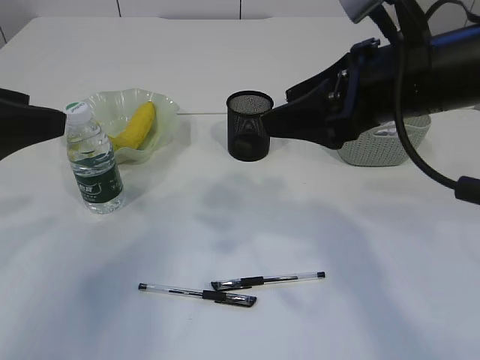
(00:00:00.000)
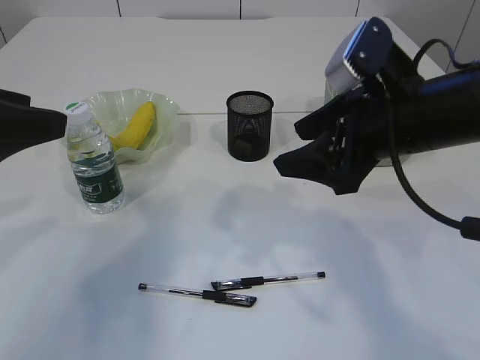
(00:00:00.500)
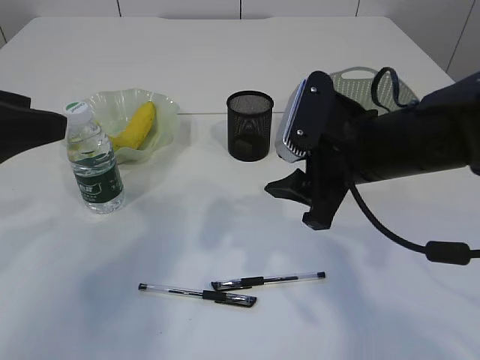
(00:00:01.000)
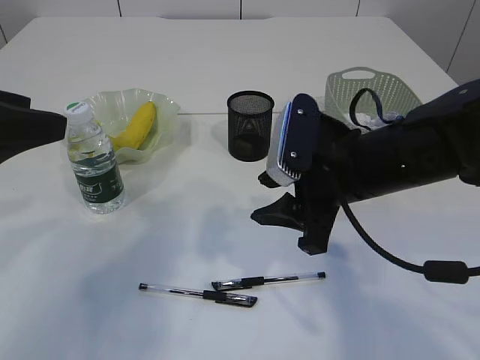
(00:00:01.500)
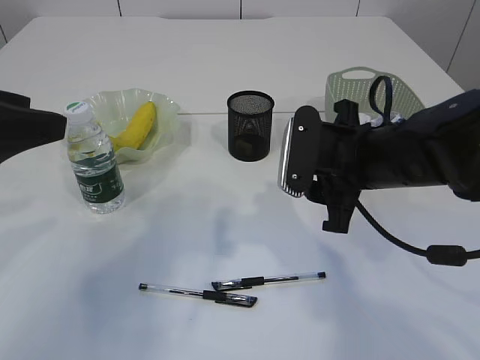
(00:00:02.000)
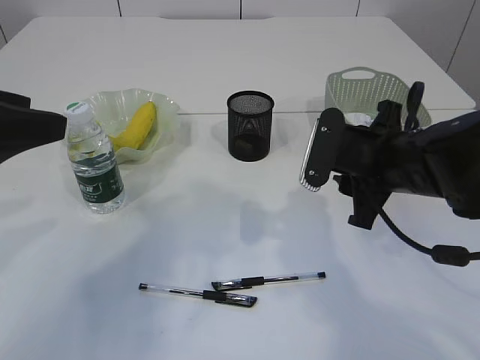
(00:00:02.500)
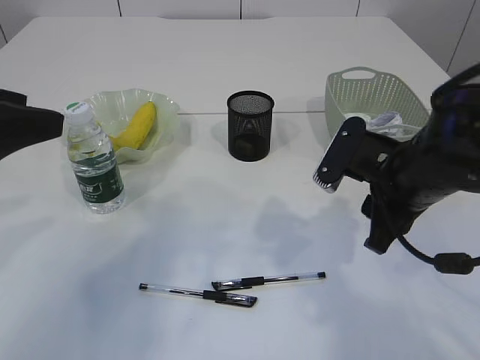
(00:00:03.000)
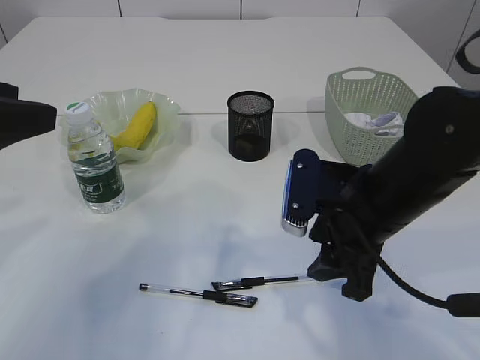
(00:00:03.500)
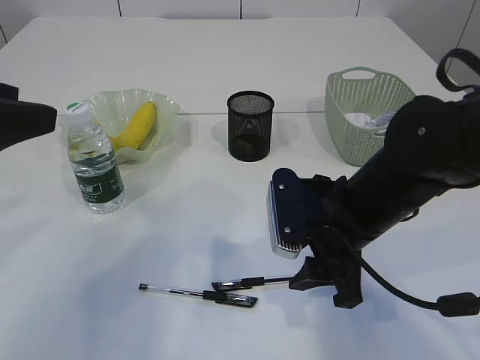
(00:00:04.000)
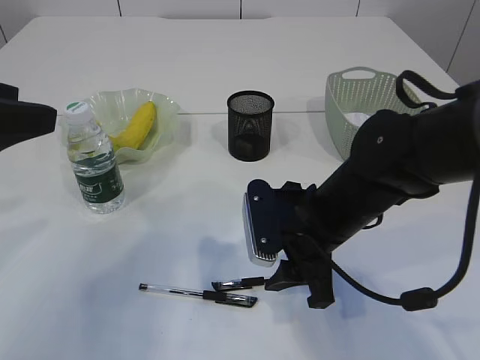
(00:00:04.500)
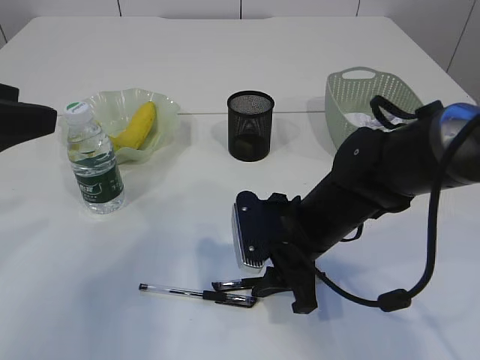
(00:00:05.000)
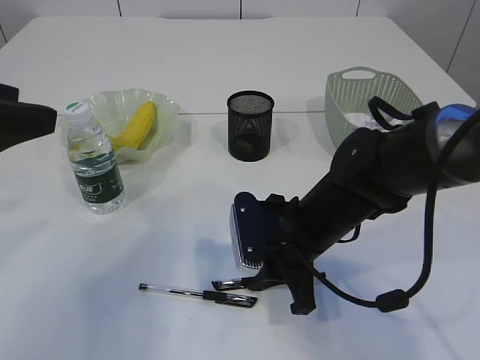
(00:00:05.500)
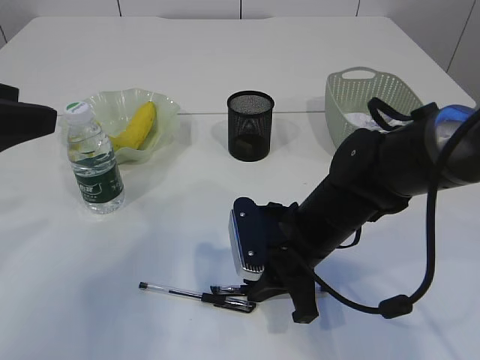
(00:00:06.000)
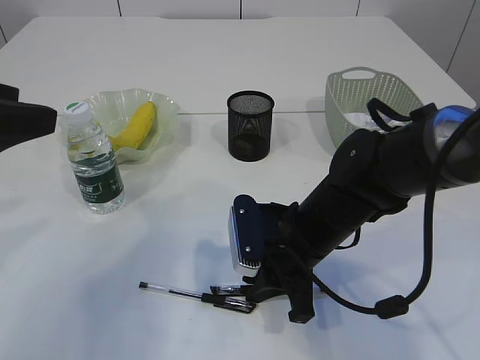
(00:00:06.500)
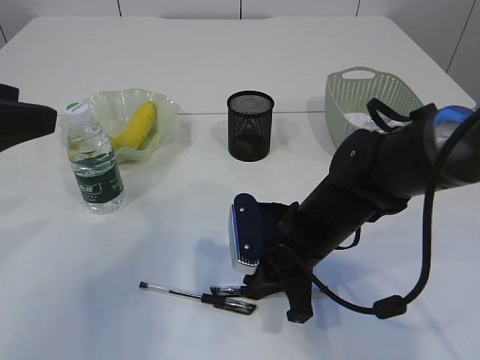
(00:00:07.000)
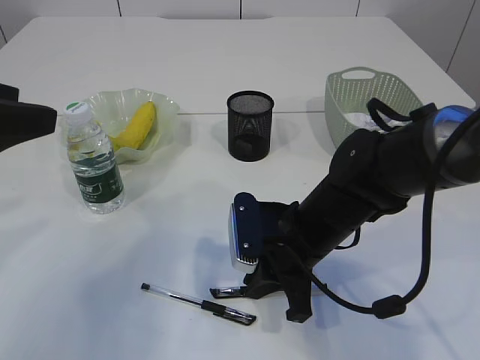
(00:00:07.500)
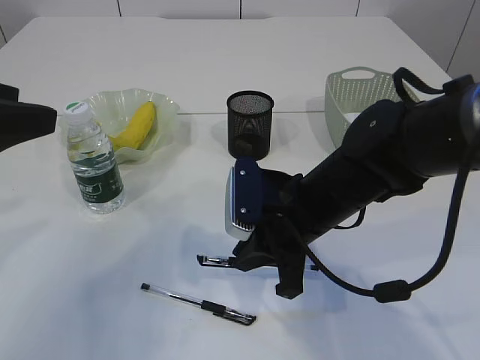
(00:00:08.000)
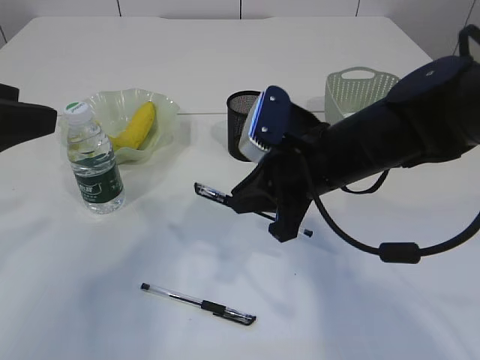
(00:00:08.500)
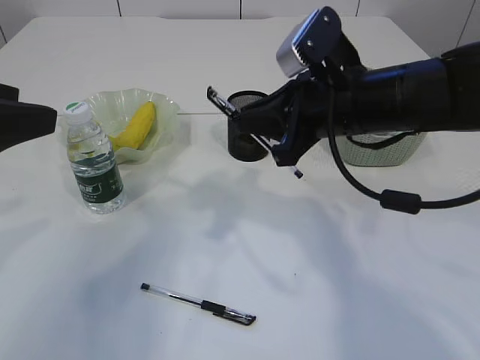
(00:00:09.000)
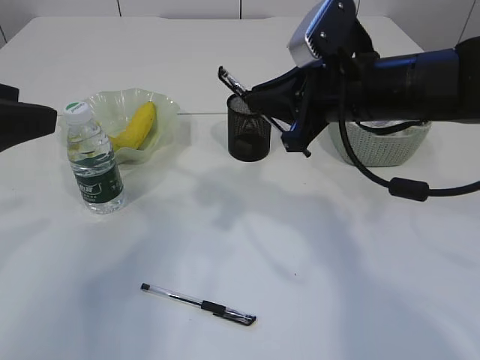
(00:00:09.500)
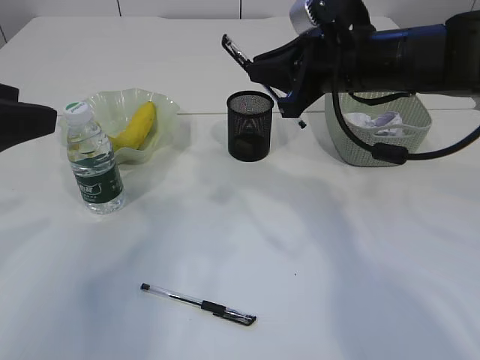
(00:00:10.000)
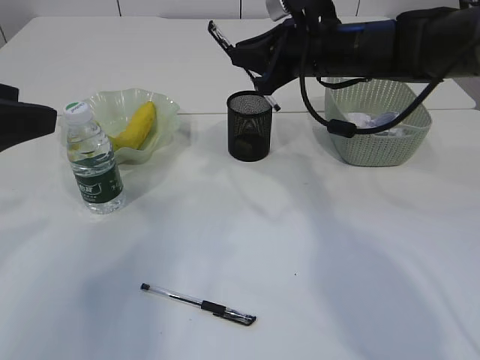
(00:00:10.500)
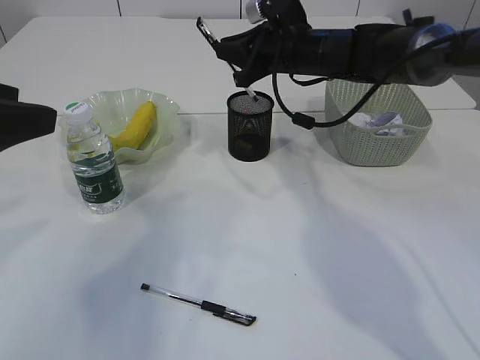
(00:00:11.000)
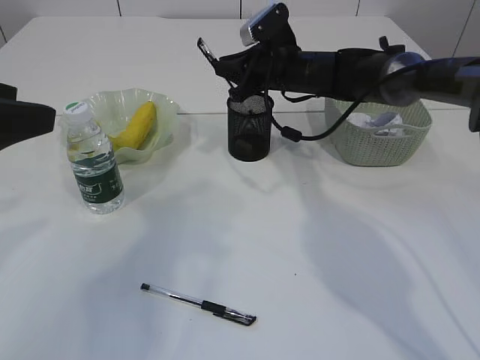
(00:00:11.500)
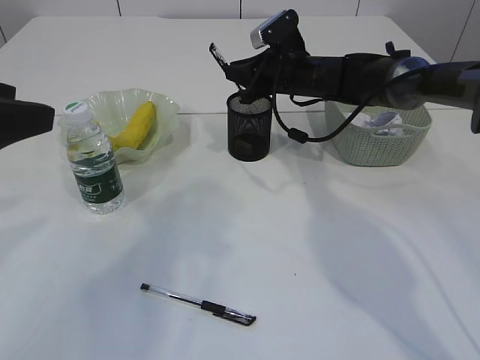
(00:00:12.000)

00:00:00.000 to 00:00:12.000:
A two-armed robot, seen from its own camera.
Step, 00:00:00.000 to 00:00:08.000: Pick up the pen with right arm.
00:00:00.000 to 00:00:02.000: The right gripper travels downward by some 10 cm.
00:00:02.000 to 00:00:04.000: The right gripper ends up about 5 cm from where it was.
00:00:04.000 to 00:00:06.000: The right gripper moves downward, about 5 cm, and closes up.
00:00:06.000 to 00:00:08.000: There are only small adjustments of the grippers.
00:00:08.000 to 00:00:10.000: The right gripper is displaced upward, forward and to the right by about 15 cm.
00:00:10.000 to 00:00:12.000: The right gripper moves forward and downward, some 20 cm.

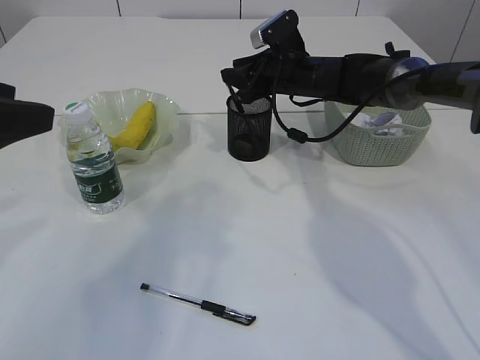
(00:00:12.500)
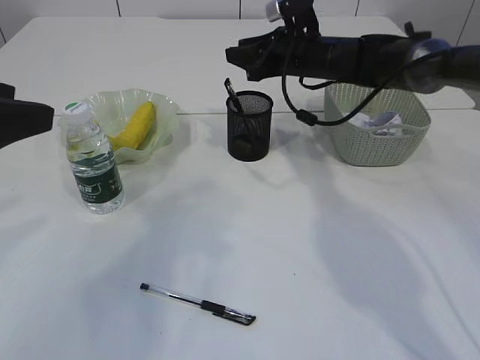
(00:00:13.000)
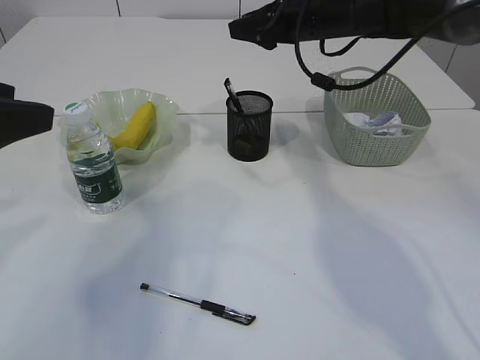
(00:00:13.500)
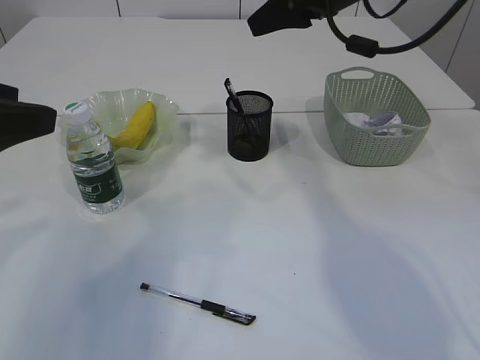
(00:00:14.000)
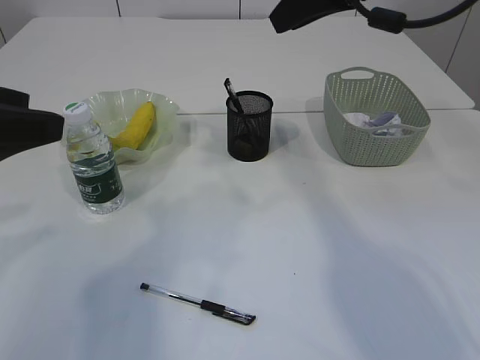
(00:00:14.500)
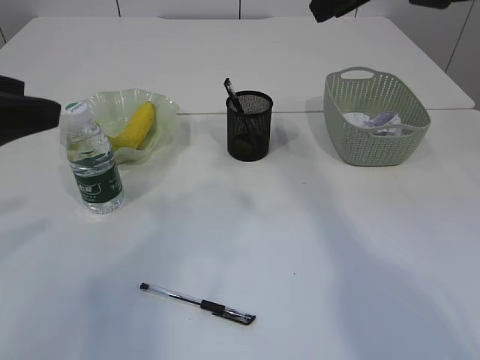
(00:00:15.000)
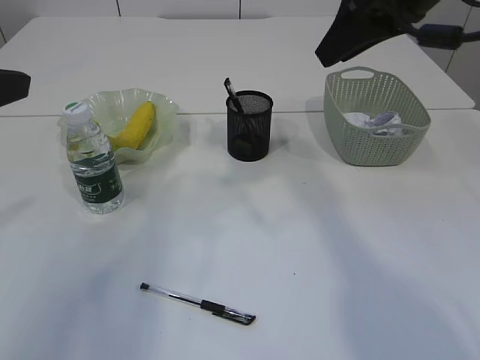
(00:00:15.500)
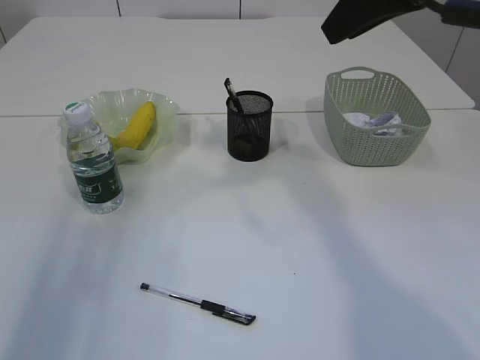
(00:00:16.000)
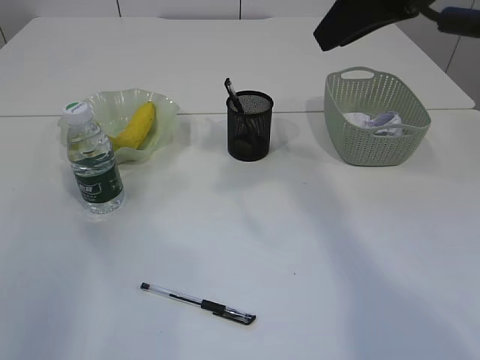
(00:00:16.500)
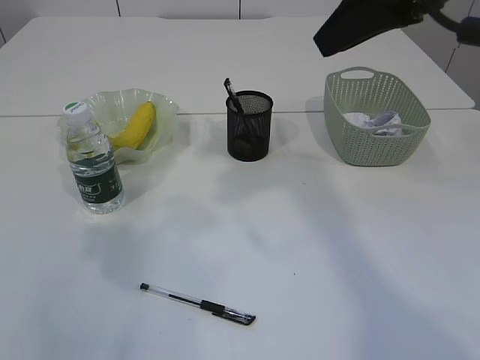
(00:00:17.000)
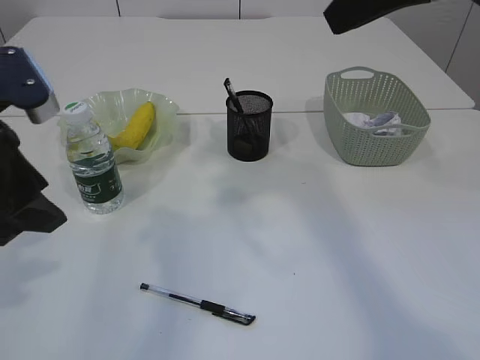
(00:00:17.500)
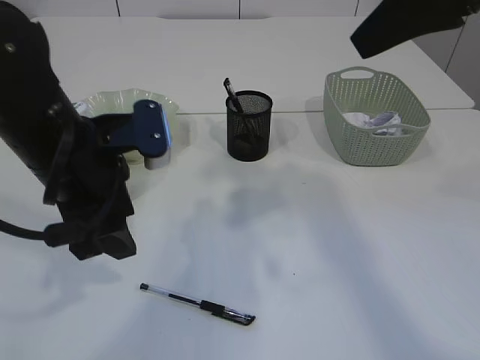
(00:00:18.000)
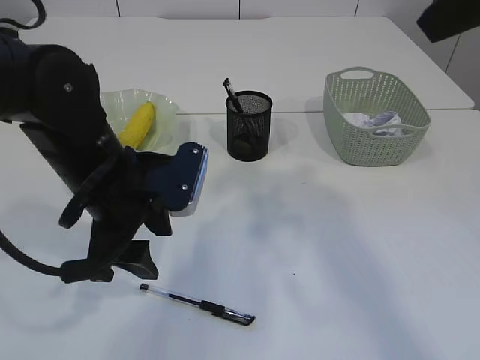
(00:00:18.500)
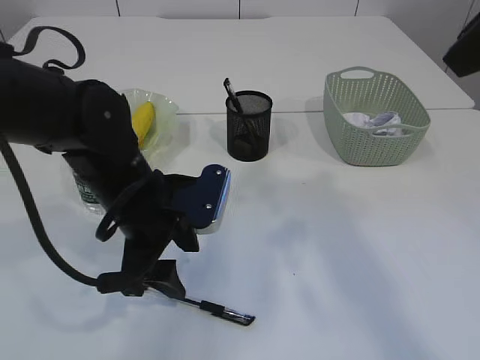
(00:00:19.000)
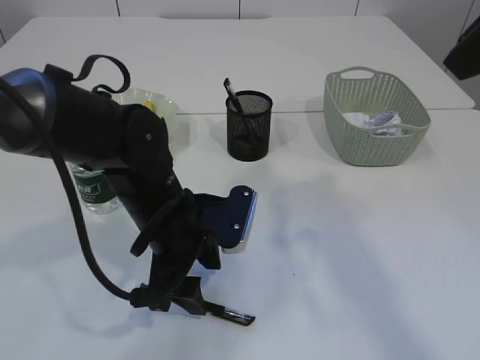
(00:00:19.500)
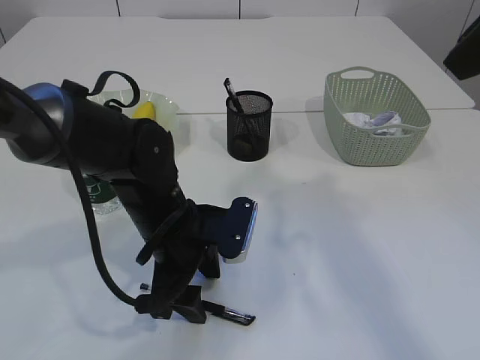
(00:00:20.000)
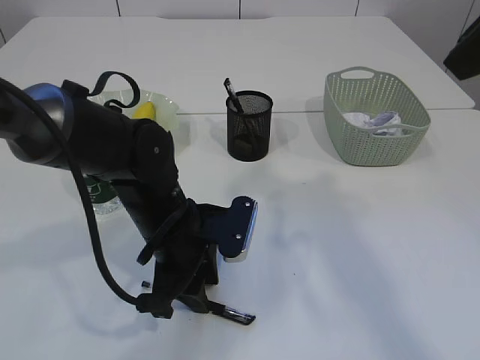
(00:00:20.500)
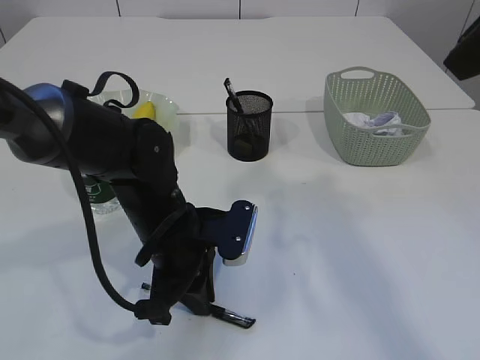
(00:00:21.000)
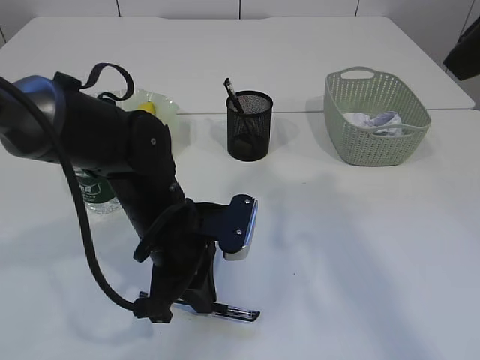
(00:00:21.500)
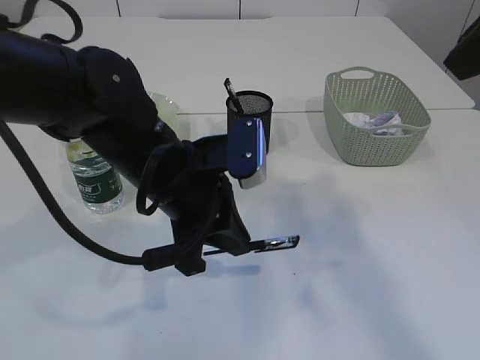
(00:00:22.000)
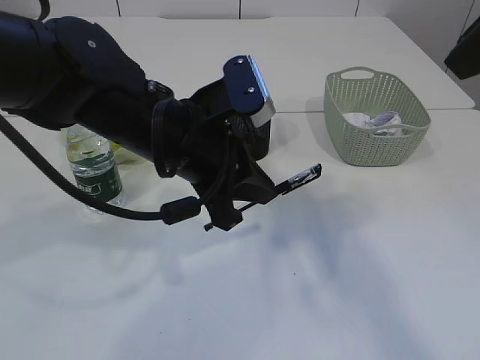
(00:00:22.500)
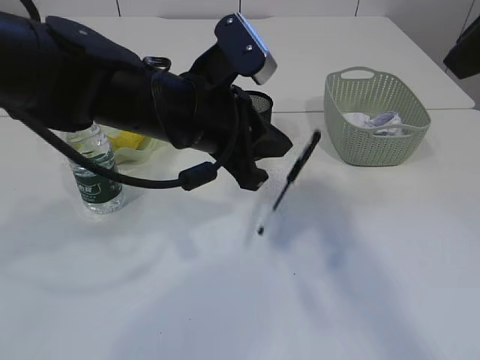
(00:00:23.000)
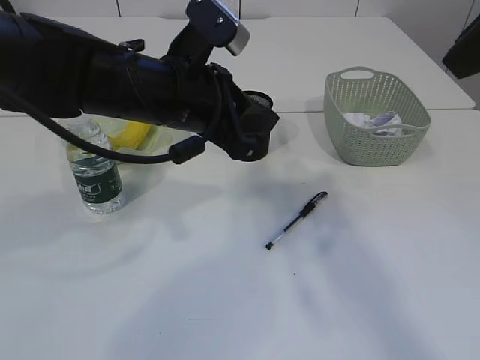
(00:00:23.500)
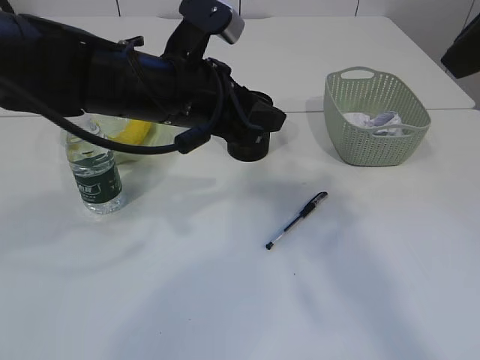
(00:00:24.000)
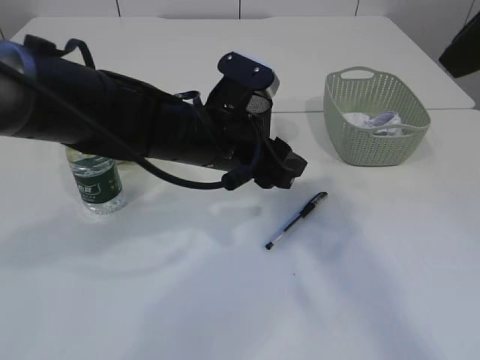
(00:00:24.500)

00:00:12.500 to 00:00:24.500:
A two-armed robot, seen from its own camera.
00:00:12.500 to 00:00:14.500: The right gripper goes about 25 cm upward and backward.
00:00:14.500 to 00:00:16.500: The left gripper is displaced to the left by roughly 10 cm, while the right gripper shifts some 5 cm backward.
00:00:16.500 to 00:00:18.500: The right gripper goes about 10 cm backward. The left gripper goes roughly 25 cm to the right and downward.
00:00:18.500 to 00:00:20.500: The left gripper travels downward by approximately 10 cm.
00:00:20.500 to 00:00:22.500: The left gripper travels upward by roughly 10 cm, and closes up.
00:00:22.500 to 00:00:24.500: The left gripper shifts by roughly 5 cm, and opens up.

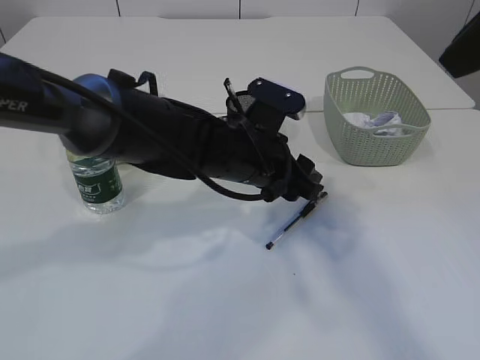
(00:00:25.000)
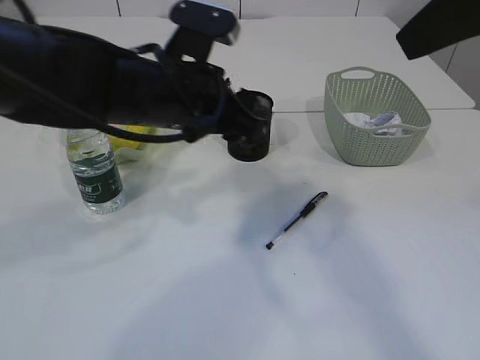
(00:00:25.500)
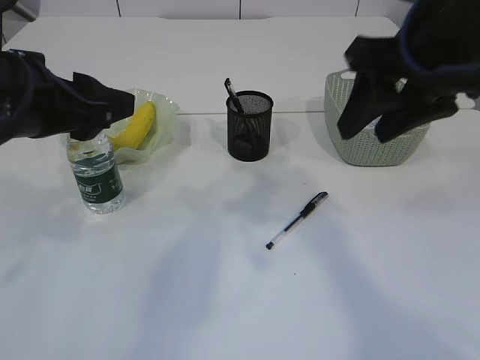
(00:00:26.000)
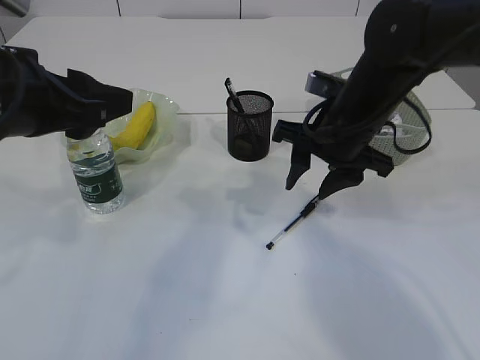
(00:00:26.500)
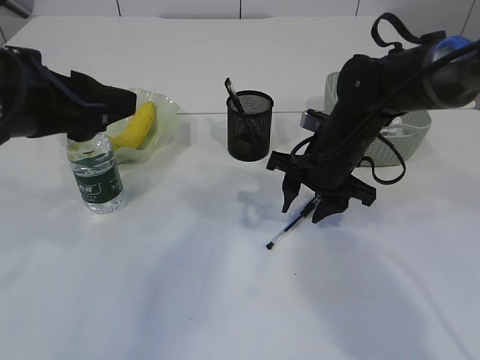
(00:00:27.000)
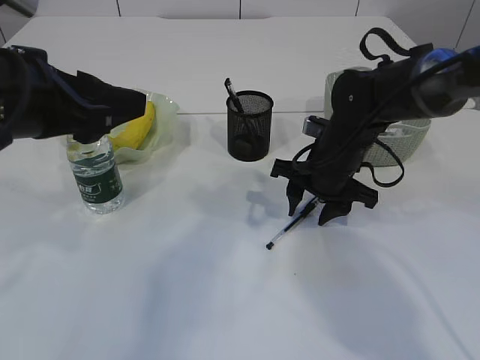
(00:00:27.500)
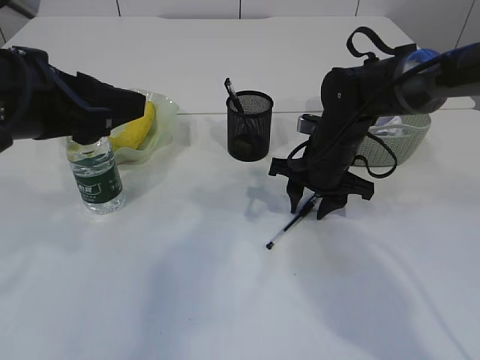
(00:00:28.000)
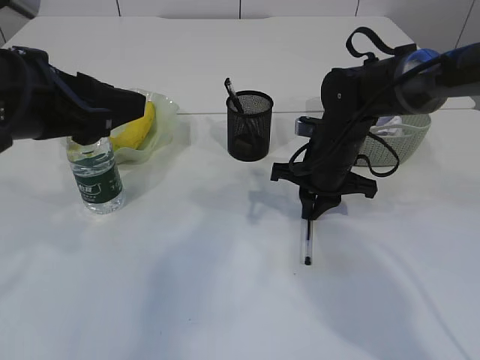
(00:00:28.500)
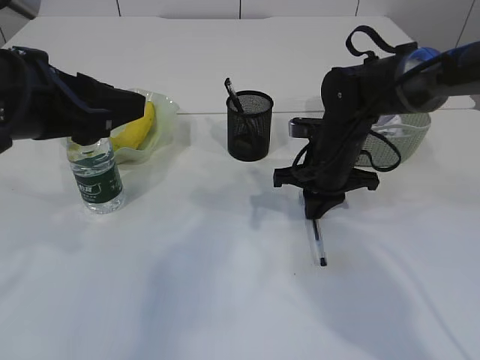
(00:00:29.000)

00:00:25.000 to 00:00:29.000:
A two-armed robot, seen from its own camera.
00:00:25.000 to 00:00:27.000: The left gripper goes some 25 cm to the left, upward and backward, while the right gripper travels downward and forward by roughly 30 cm.
00:00:27.000 to 00:00:29.000: The right gripper closes its fingers.
